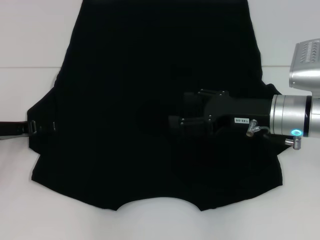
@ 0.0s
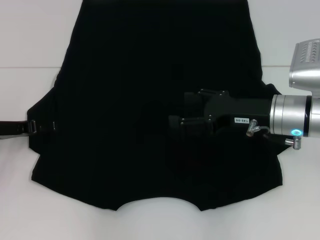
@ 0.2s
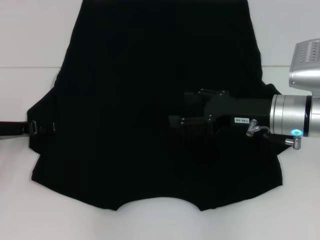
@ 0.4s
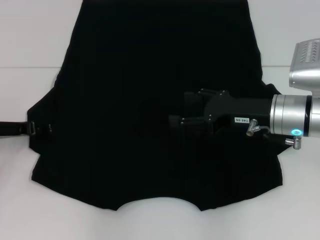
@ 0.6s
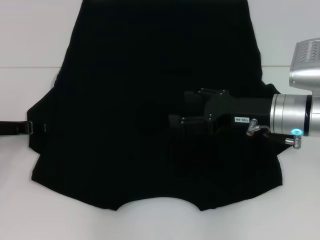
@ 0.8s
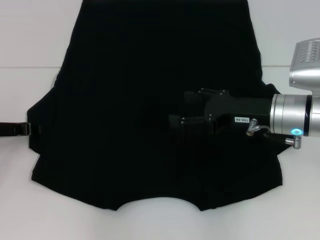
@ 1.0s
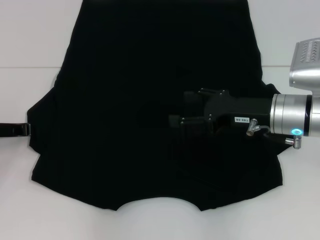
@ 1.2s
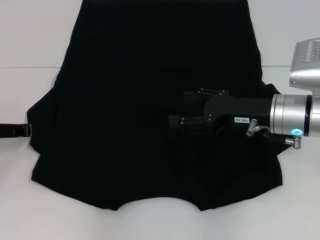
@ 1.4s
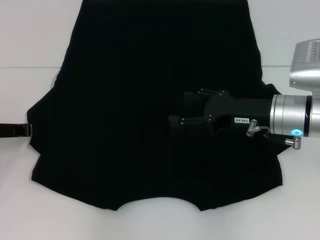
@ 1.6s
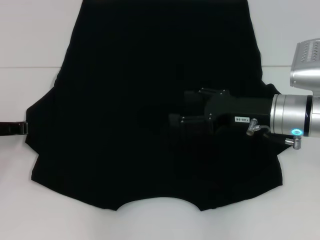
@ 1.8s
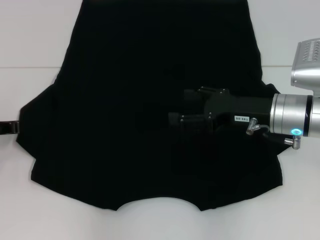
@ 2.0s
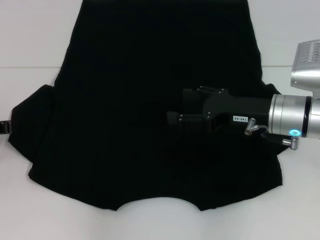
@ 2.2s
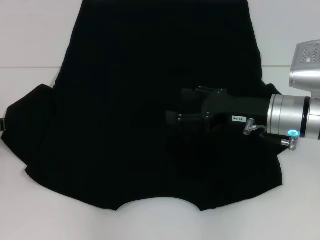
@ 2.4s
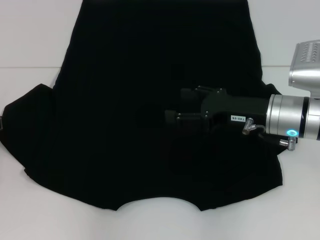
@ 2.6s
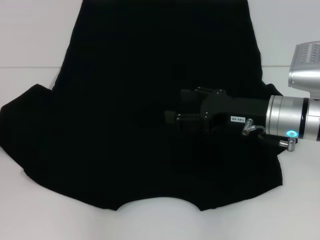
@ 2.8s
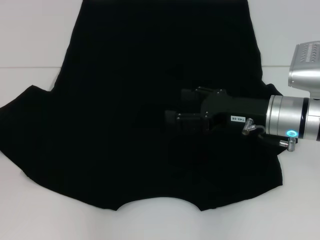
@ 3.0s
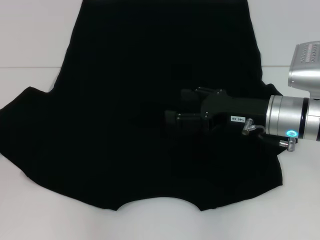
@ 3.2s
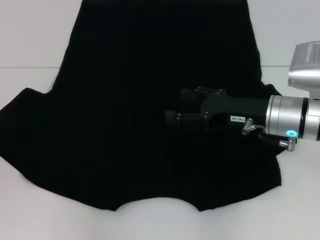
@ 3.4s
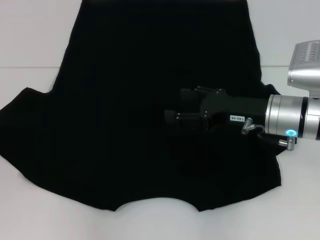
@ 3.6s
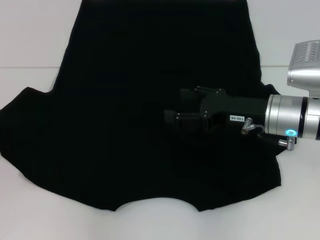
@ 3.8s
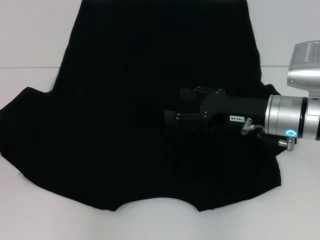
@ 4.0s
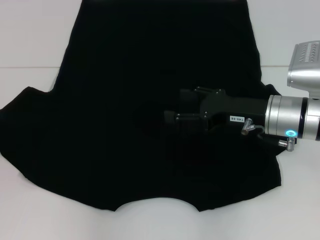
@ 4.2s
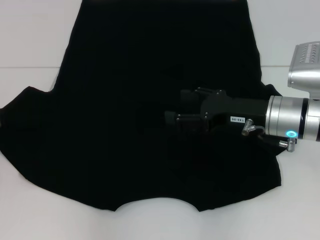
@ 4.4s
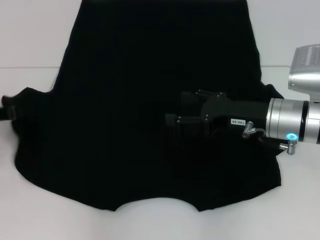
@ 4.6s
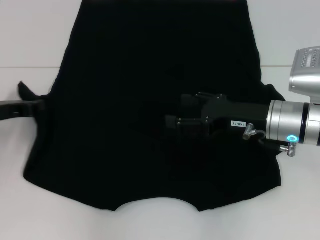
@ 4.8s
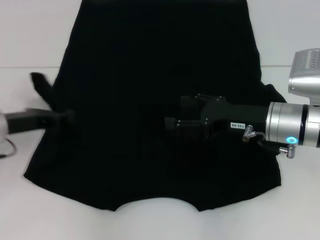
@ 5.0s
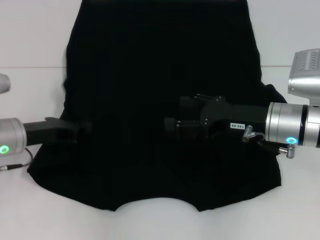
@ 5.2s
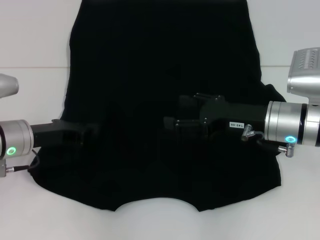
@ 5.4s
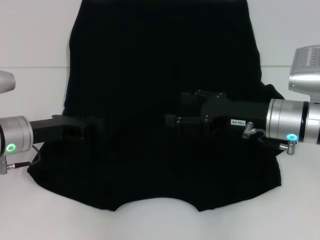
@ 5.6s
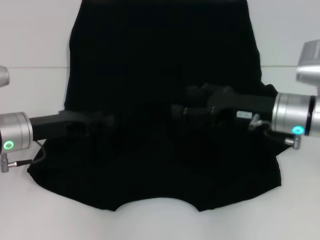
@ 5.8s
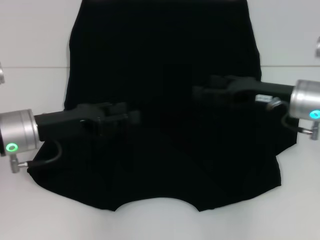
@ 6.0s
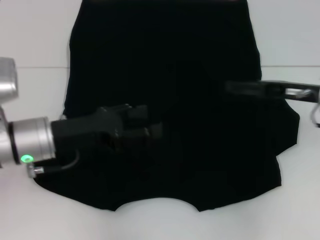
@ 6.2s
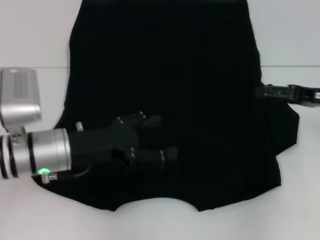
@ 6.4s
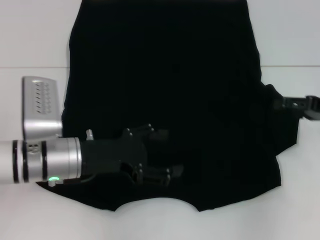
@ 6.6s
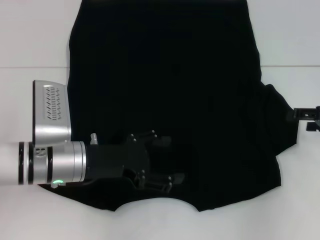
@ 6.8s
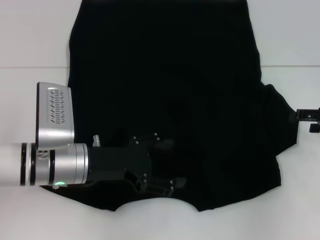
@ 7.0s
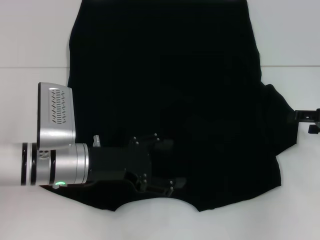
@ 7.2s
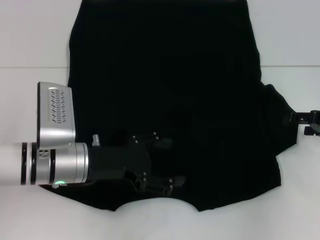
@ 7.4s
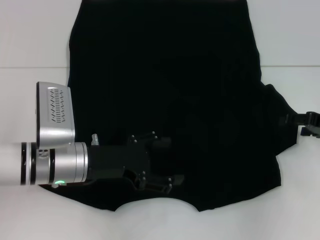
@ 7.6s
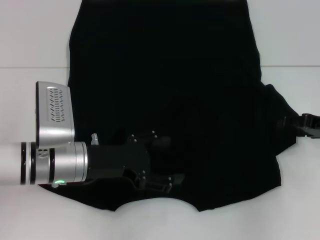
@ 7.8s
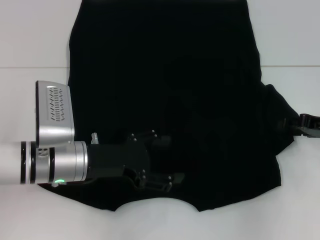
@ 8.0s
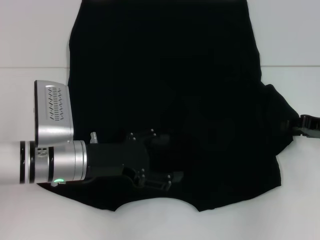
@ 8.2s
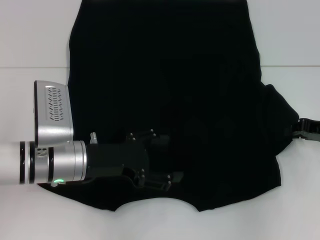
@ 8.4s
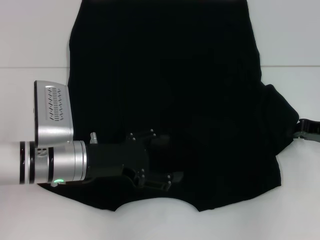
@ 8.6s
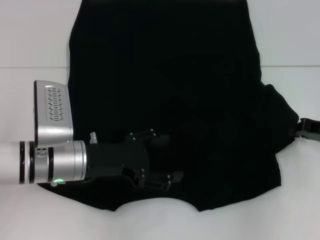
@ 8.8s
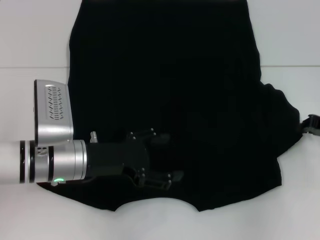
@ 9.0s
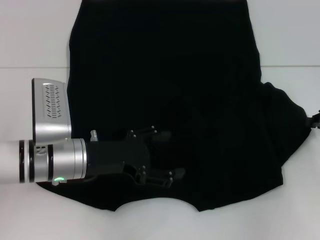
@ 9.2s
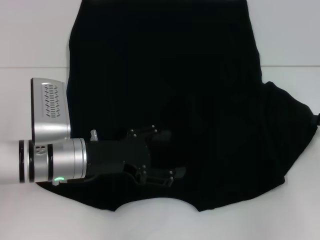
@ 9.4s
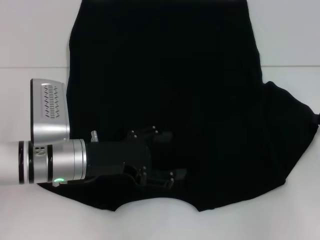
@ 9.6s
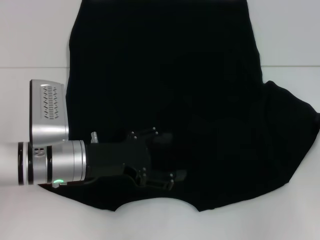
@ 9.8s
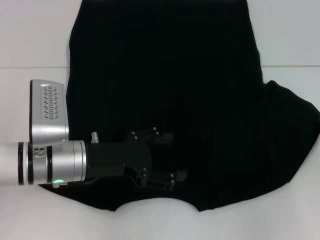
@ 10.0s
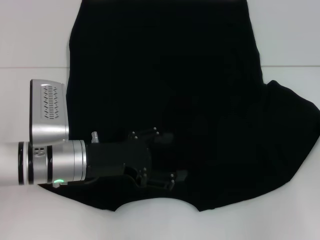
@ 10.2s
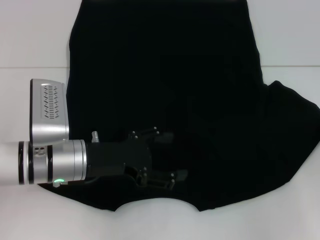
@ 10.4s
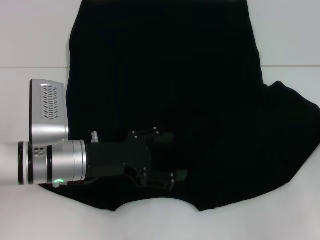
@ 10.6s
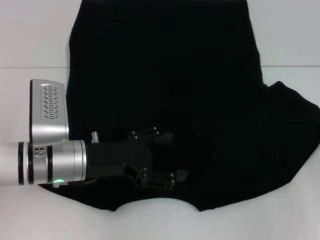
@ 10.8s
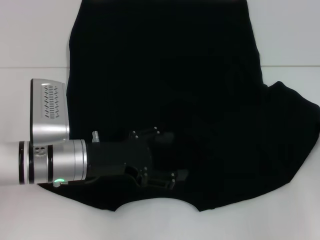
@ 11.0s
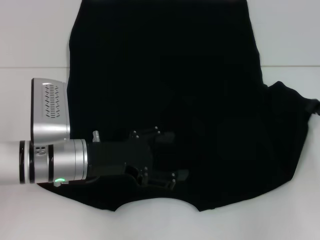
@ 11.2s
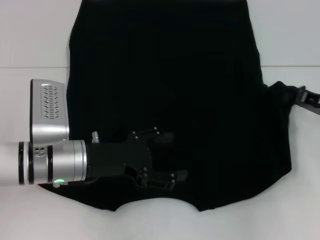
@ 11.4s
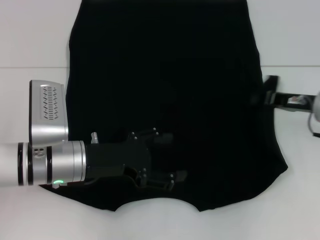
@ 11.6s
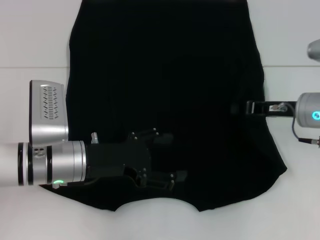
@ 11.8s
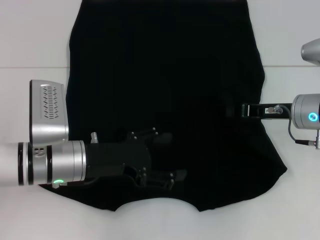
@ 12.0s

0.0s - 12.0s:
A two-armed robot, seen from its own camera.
Step, 0.0s - 5.8s: Fold the bottom left sleeve with your left hand.
1.6s - 3.0s: The left gripper changes place by some 5 cm.
3.0s - 4.4s: The two grippers keep their place.
4.4s - 6.0s: The left gripper travels to the right by about 10 cm, and opens up.
6.0s - 7.6s: The left gripper shifts about 5 cm to the right, and opens its fingers. Meanwhile the right gripper shifts approximately 10 cm to the right.
7.6s - 9.0s: The right gripper closes up.
9.0s - 10.4s: The grippers stay close to where they were, moving slightly.
10.4s - 12.0s: The right gripper is displaced to the left by some 15 cm.

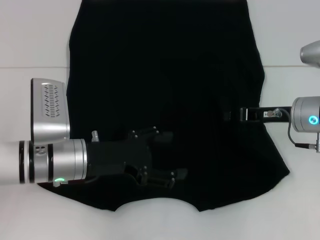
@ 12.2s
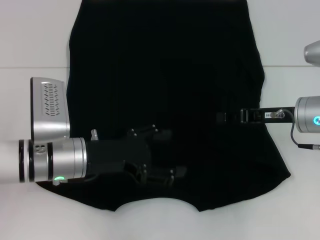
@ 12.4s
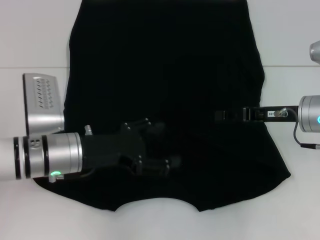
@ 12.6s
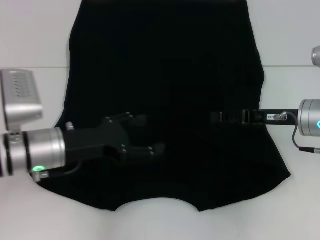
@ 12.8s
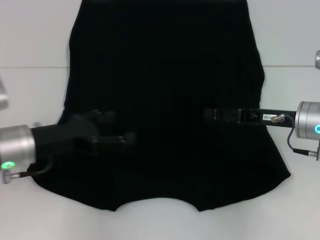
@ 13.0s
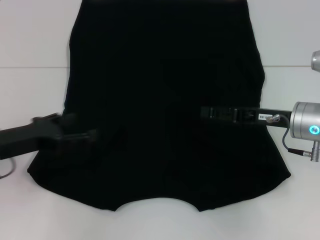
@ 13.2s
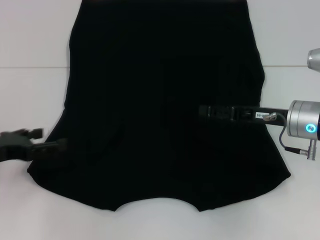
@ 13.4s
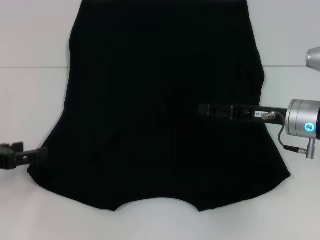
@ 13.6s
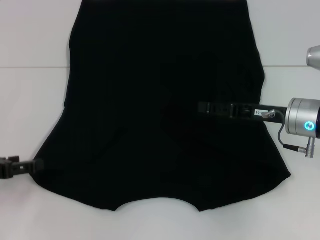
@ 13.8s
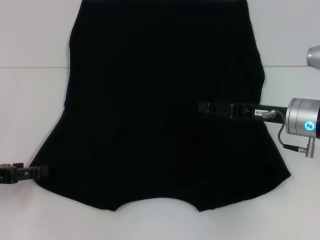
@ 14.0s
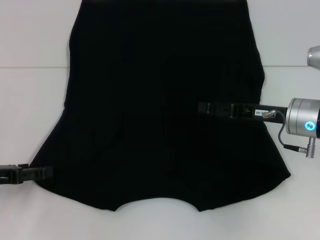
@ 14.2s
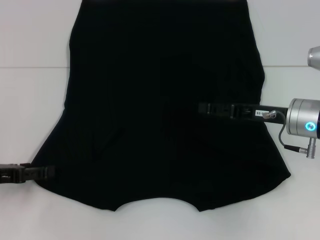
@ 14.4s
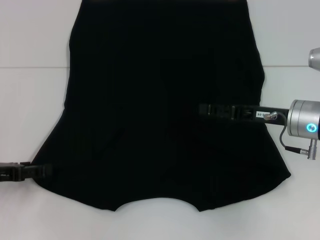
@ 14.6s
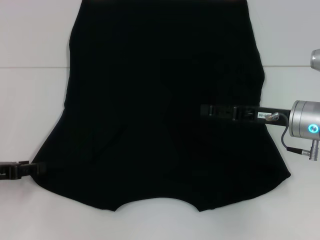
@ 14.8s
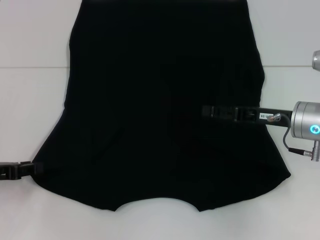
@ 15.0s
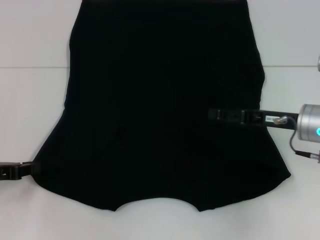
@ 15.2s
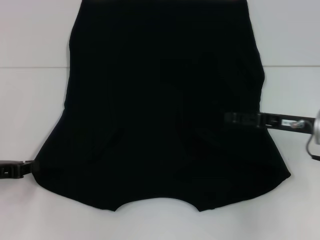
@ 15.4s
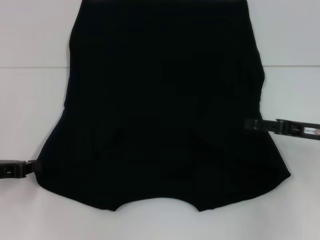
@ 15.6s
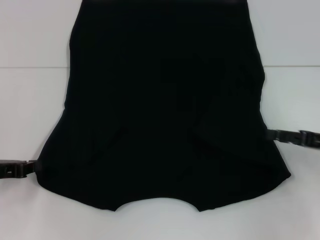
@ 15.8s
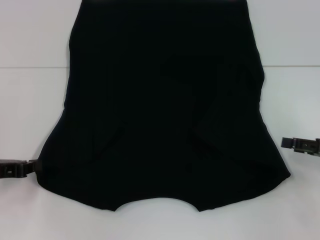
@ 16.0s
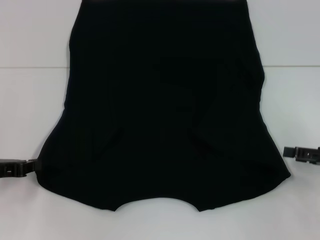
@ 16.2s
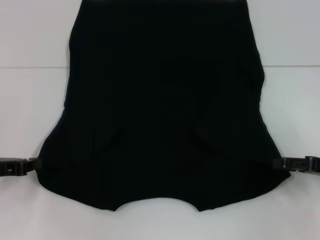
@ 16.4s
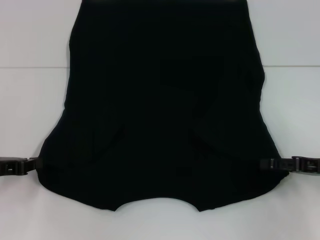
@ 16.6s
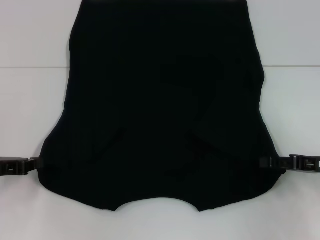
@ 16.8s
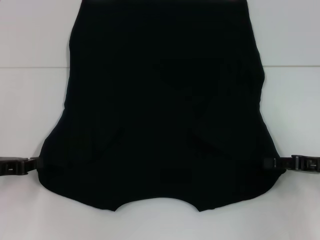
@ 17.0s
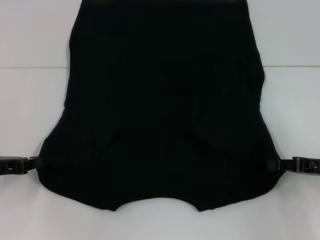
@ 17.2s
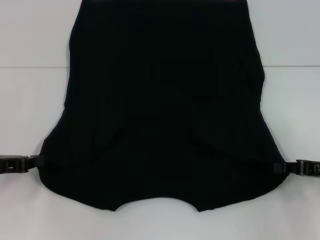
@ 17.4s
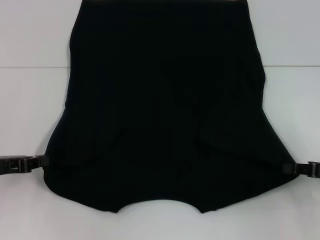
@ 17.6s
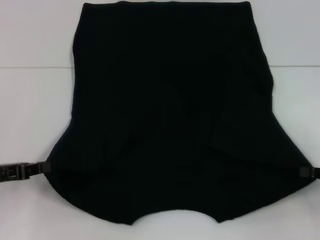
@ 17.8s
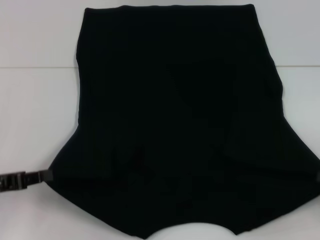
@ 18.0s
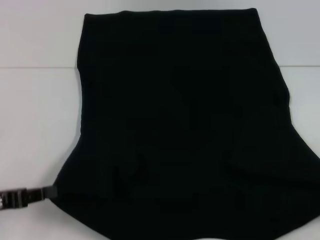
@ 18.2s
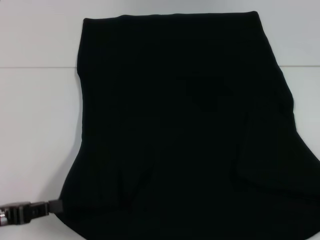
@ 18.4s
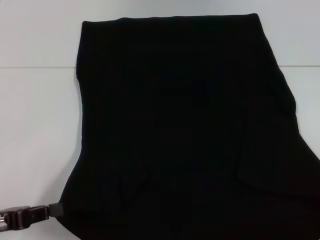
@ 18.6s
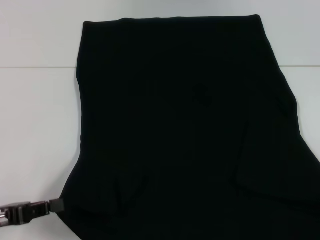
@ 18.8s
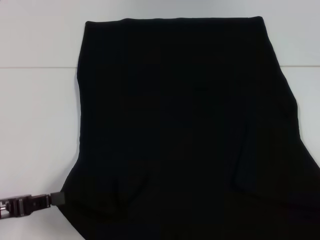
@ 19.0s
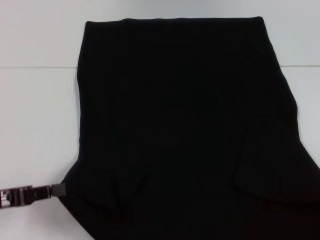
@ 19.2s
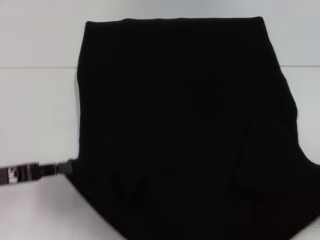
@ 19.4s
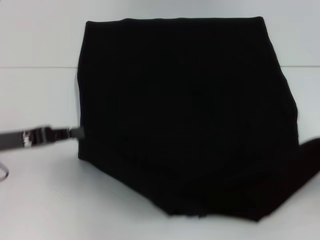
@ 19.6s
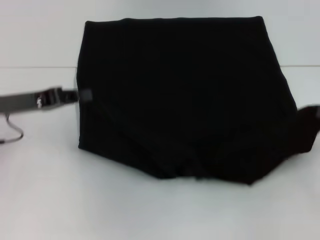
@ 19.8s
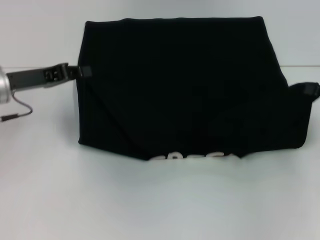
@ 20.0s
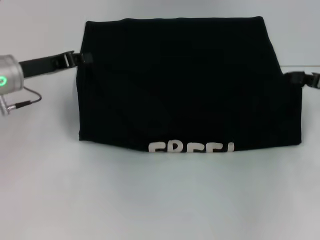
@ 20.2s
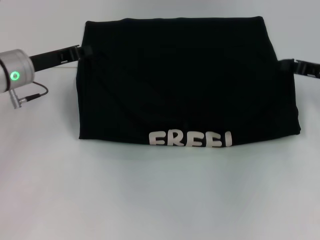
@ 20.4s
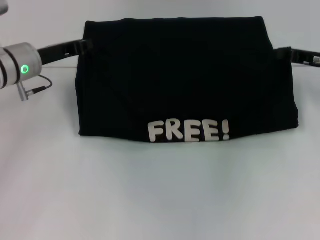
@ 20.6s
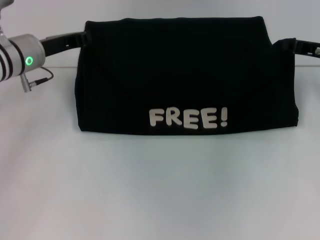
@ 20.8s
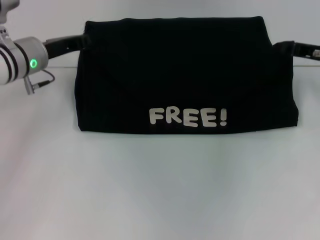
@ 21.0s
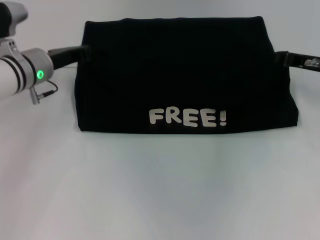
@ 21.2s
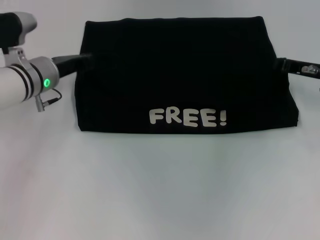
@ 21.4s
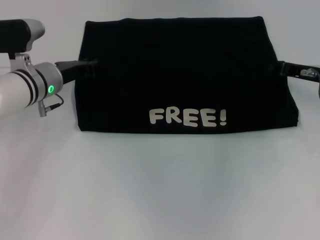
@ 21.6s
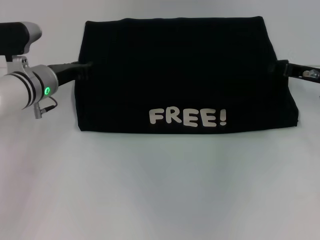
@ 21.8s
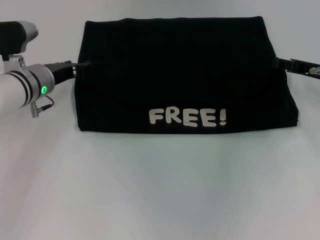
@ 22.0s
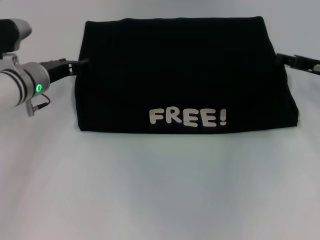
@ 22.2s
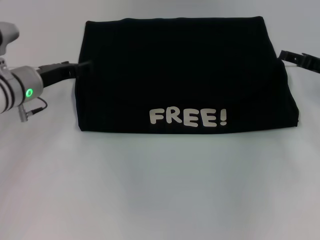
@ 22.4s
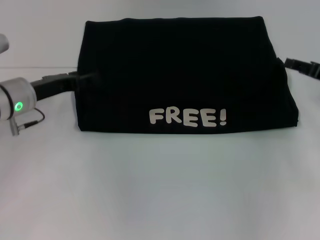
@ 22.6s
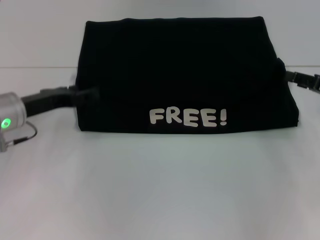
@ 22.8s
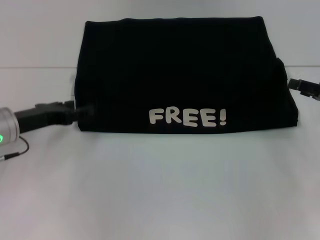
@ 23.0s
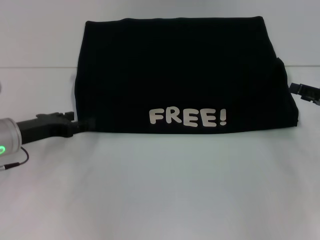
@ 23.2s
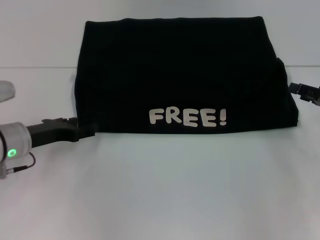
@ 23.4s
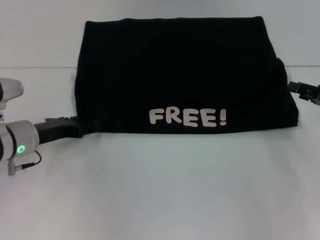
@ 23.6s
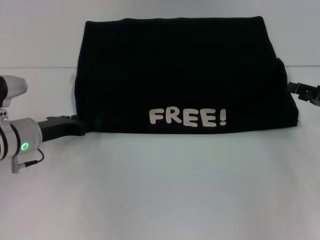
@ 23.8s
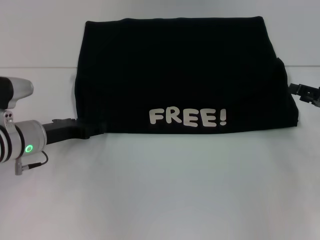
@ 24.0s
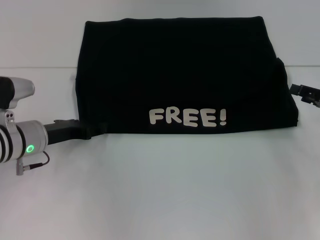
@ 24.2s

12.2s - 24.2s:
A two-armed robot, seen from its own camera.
Step, 12.6s - 16.0s: Grab the bottom left corner with your left hand.
Step, 16.2s - 17.4s: Grab the bottom right corner with your right hand.
Step, 17.6s - 22.0s: Fold the clothes with your left hand.
Step, 17.6s - 22.0s: Fold the clothes with your right hand.
12.2s - 13.8s: The left gripper goes some 20 cm to the left; the right gripper opens its fingers.
15.2s - 16.6s: The right gripper goes about 10 cm to the right and backward.
16.6s - 18.2s: The left gripper is displaced backward by some 5 cm, while the right gripper heads to the right and backward, covering approximately 10 cm, and closes up.
18.2s - 19.8s: The right gripper goes about 5 cm forward; the left gripper moves forward and upward, about 10 cm.
19.8s - 21.2s: The right gripper travels forward and to the left by some 15 cm. The left gripper moves forward and to the right, roughly 10 cm.
21.2s - 22.6s: The right gripper moves about 5 cm, and opens up. Meanwhile the left gripper ends up some 5 cm from where it was, and opens.
22.6s - 24.2s: The left gripper moves about 5 cm.
